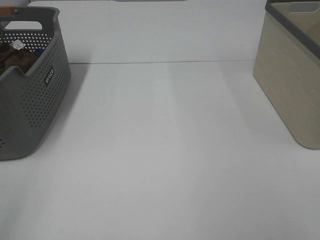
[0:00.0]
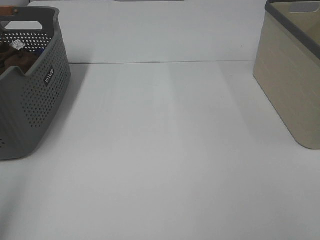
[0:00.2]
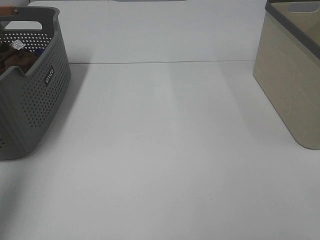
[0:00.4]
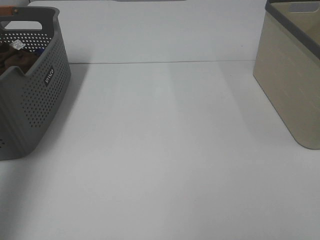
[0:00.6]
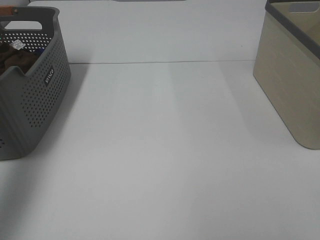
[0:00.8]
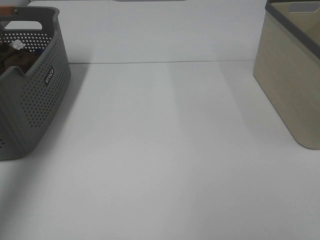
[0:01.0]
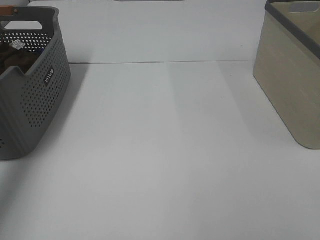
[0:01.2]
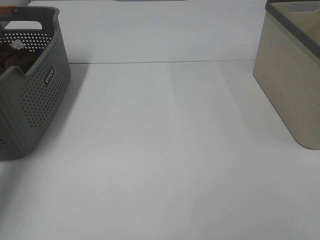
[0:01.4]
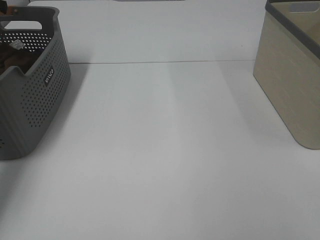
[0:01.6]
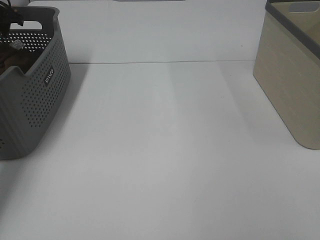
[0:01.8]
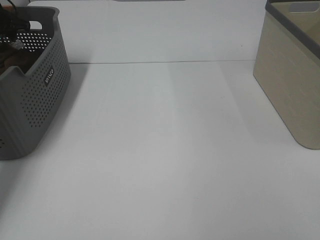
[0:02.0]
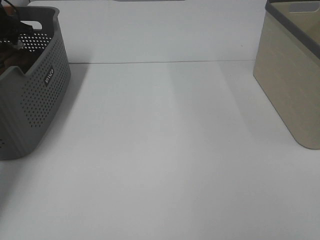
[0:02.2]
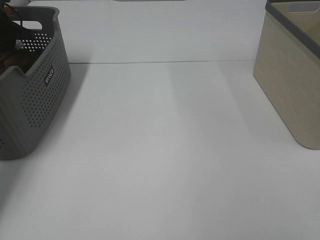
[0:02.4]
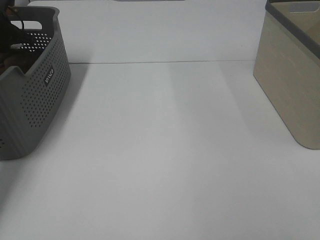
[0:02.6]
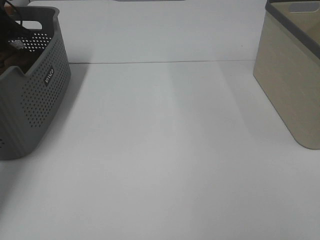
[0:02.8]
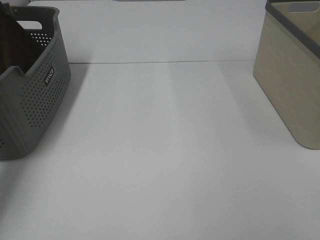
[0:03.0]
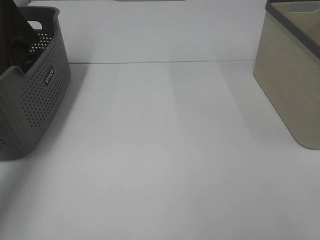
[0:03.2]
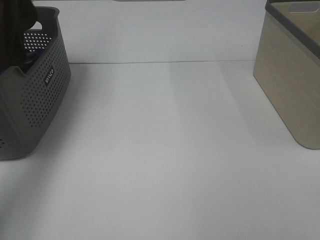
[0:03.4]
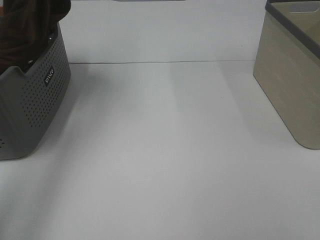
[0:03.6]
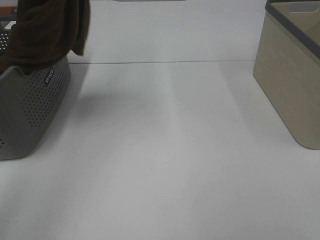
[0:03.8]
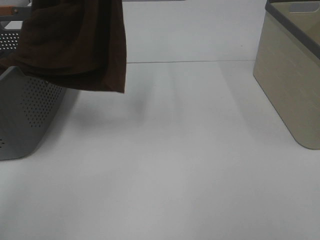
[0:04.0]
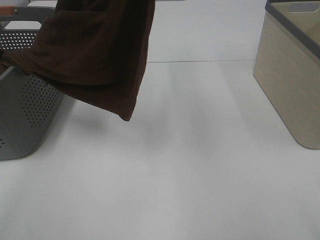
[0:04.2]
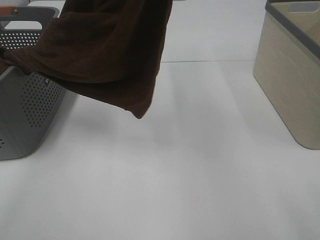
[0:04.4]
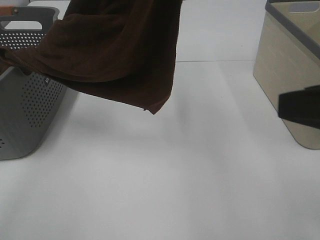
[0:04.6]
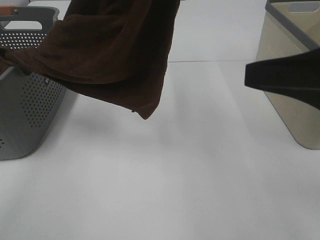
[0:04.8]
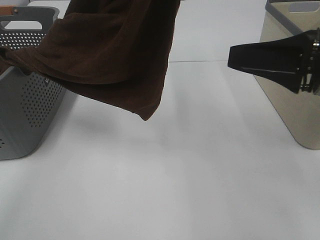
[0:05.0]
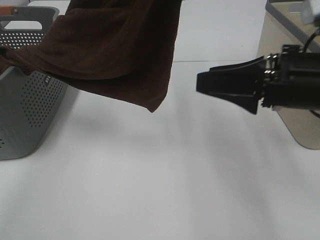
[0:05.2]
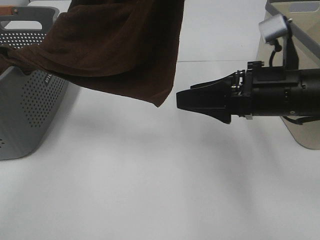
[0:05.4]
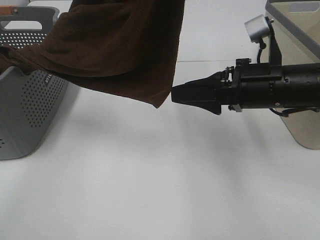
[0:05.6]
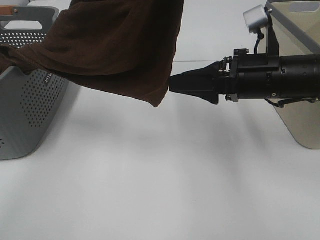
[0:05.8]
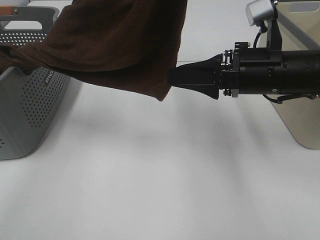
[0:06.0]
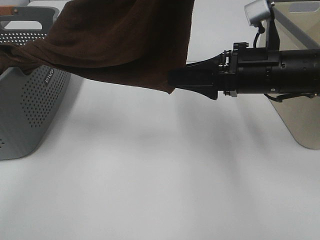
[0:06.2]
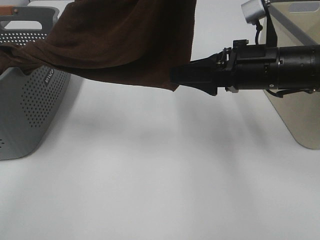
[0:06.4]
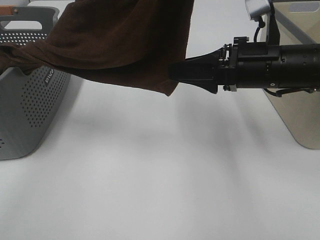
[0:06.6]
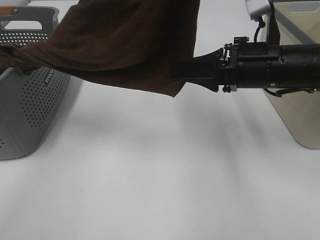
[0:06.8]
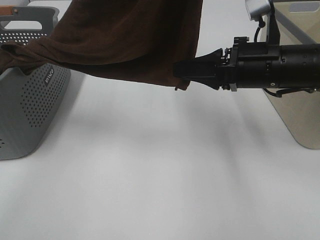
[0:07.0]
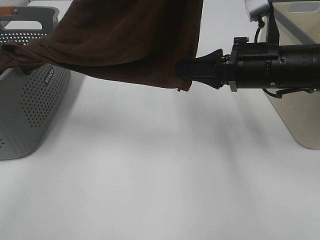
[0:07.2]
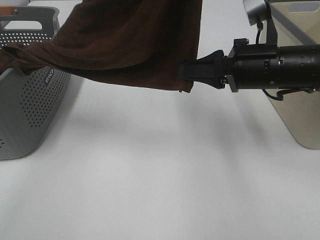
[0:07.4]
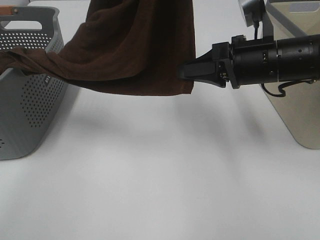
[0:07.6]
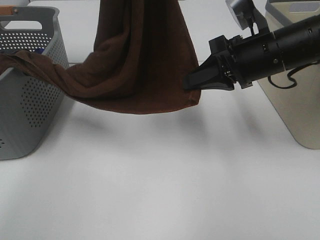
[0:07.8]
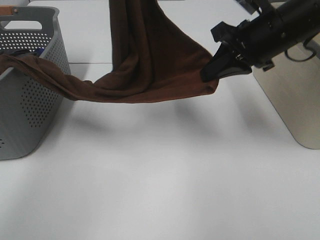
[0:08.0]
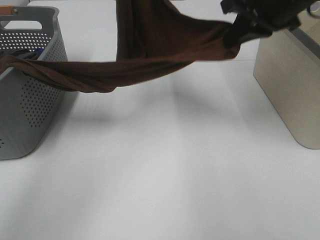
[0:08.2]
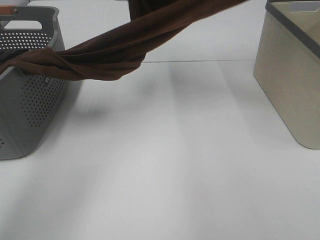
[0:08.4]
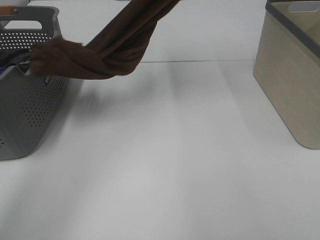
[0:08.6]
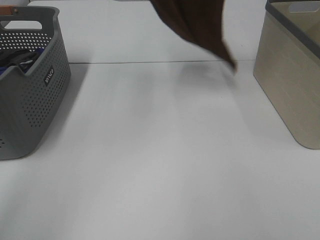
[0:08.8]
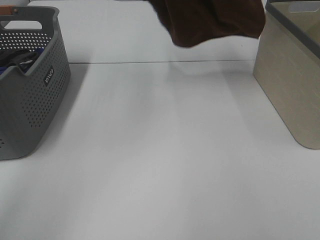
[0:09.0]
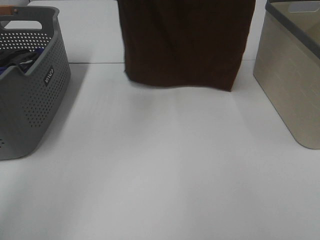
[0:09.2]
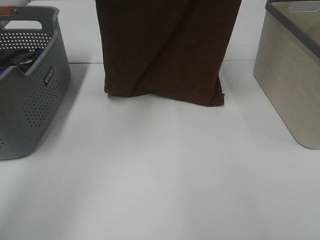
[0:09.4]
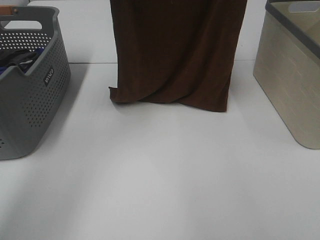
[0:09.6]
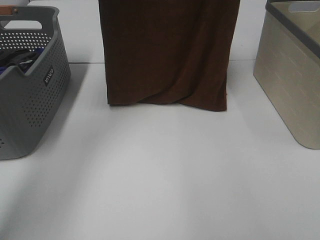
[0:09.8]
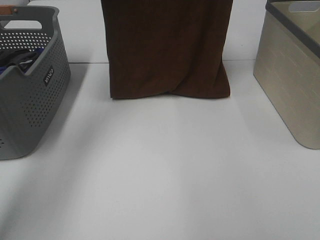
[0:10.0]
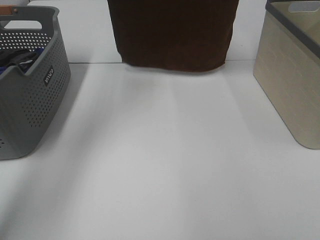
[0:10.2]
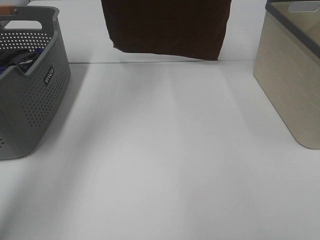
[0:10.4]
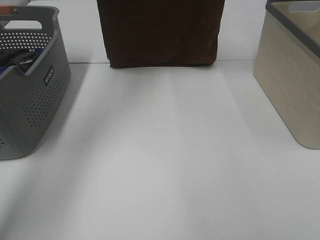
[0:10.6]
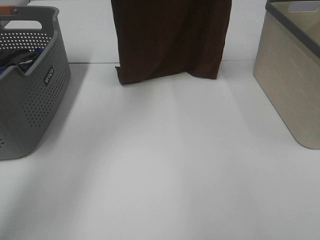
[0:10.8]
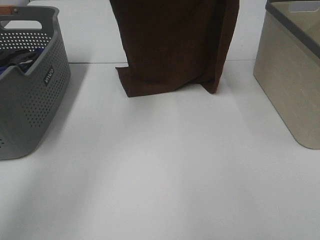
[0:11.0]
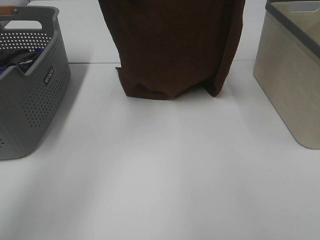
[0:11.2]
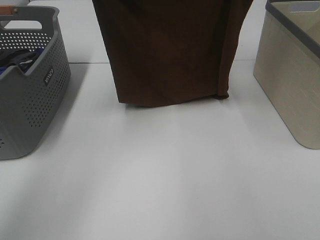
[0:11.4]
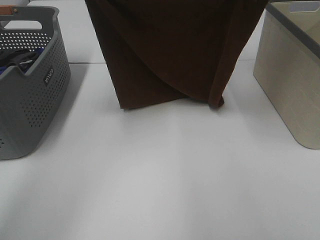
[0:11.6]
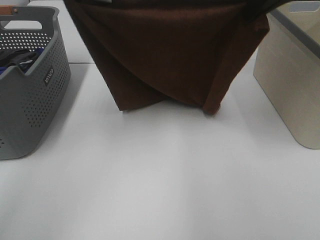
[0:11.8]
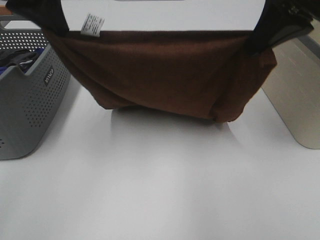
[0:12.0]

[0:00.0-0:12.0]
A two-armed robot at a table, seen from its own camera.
Task of the whole recording: Remove the towel and place it.
Step, 0:03.2 to 0:06.0: Right hand: grab a corner of the brown towel and straighten it.
Step, 0:06.2 to 0:10.0: Left hand: spread the brown towel flat on the table.
Step, 0:06.2 to 0:10.0: Right hand: spread the brown towel flat on the table.
0:00.0 to 0:01.6: The left gripper is displaced forward by approximately 50 cm.
0:01.6 to 0:03.0: The left gripper goes downward and returns, about 10 cm each way, and closes up.
0:03.0 to 0:04.4: The left gripper is displaced to the right, backward and upward by roughly 40 cm. The right gripper heads forward, covering some 5 cm.
0:04.4 to 0:06.0: The right gripper is displaced forward, downward and to the left by about 25 cm.
0:06.0 to 0:07.6: The right gripper closes its fingers.
0:07.6 to 0:09.0: The left gripper shifts approximately 10 cm to the left and forward, and reaches about 10 cm downward, then returns. Meanwhile the right gripper goes approximately 35 cm upward.
0:09.0 to 0:10.4: The left gripper travels forward and downward by approximately 10 cm, while the right gripper goes about 10 cm forward.
0:10.4 to 0:12.0: The right gripper shifts roughly 25 cm downward and backward, while the left gripper travels backward and downward by roughly 20 cm.

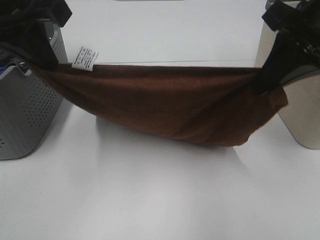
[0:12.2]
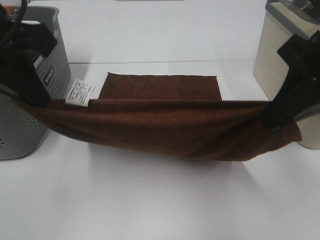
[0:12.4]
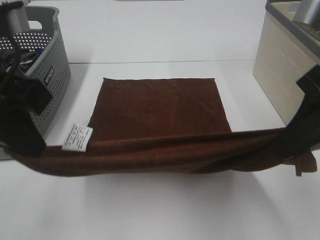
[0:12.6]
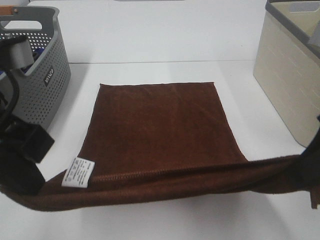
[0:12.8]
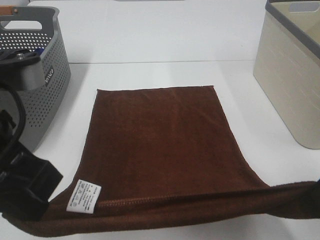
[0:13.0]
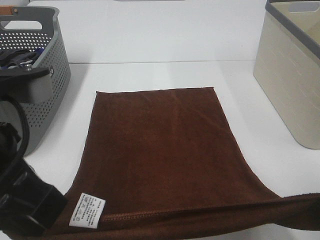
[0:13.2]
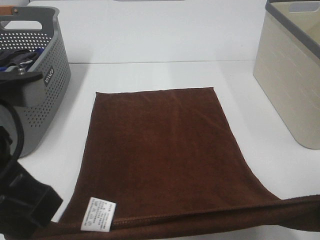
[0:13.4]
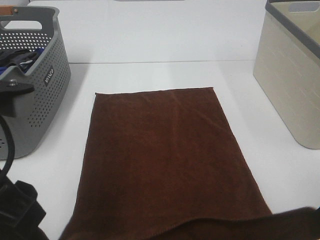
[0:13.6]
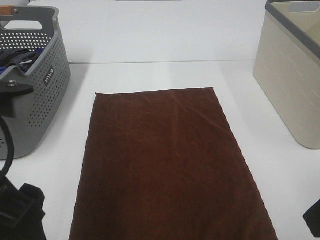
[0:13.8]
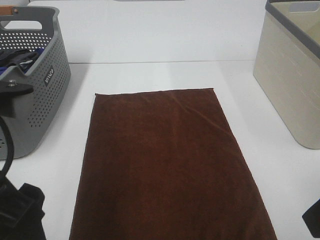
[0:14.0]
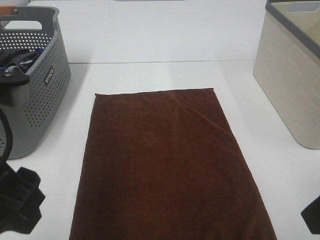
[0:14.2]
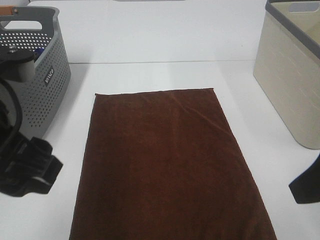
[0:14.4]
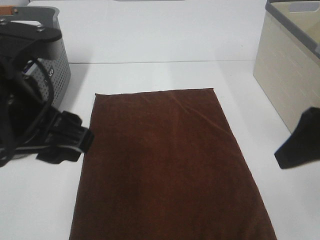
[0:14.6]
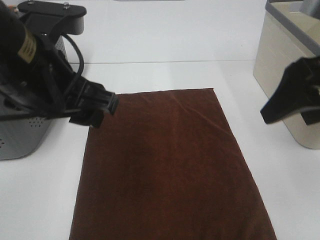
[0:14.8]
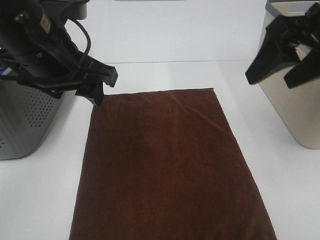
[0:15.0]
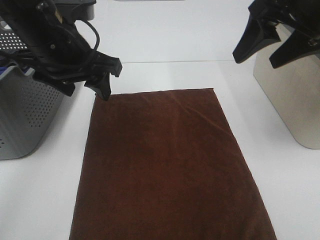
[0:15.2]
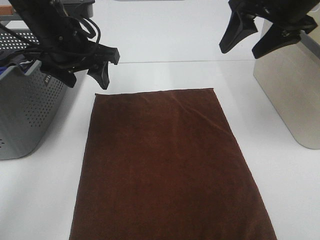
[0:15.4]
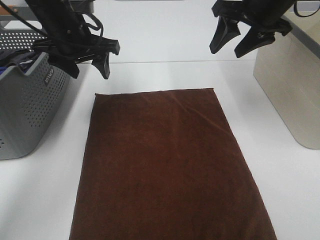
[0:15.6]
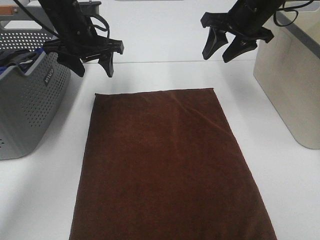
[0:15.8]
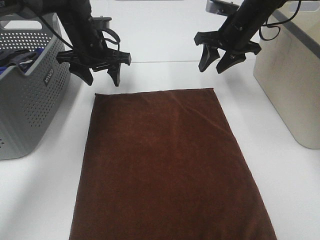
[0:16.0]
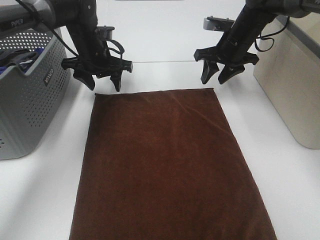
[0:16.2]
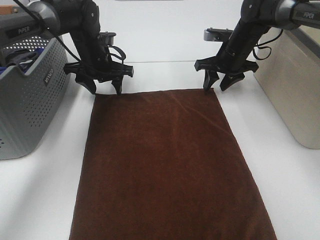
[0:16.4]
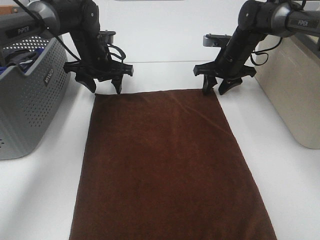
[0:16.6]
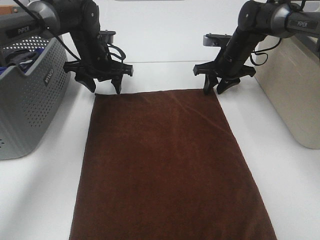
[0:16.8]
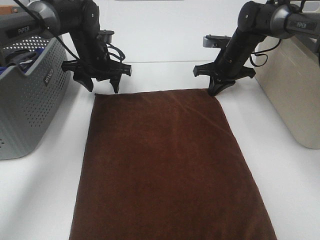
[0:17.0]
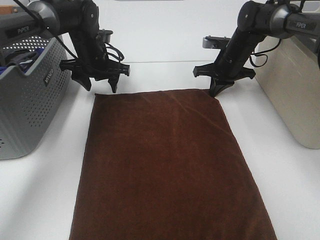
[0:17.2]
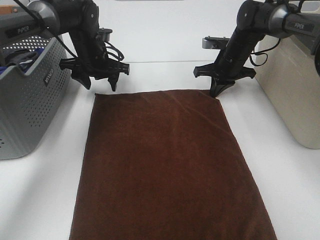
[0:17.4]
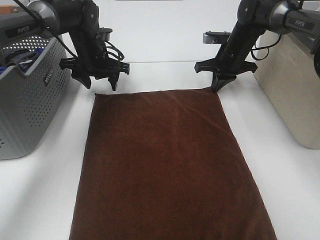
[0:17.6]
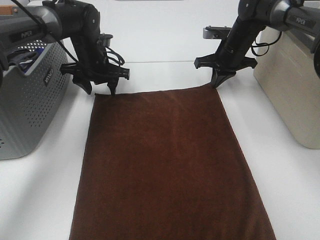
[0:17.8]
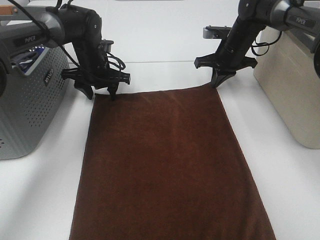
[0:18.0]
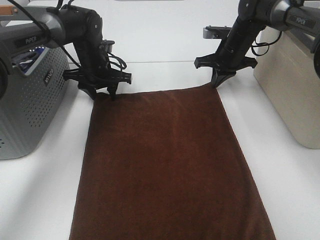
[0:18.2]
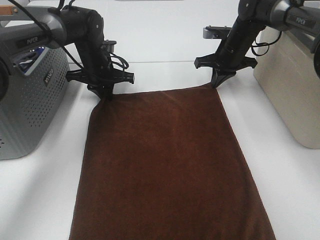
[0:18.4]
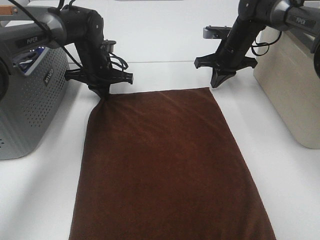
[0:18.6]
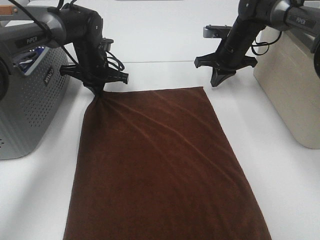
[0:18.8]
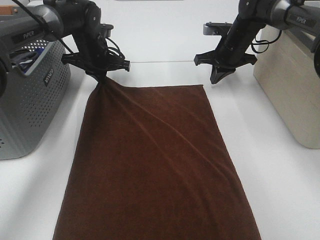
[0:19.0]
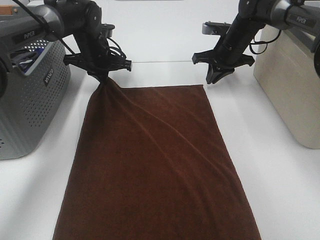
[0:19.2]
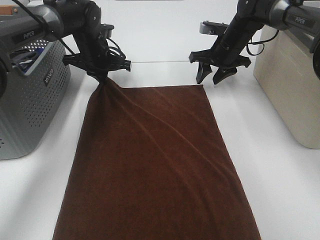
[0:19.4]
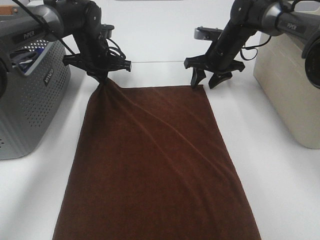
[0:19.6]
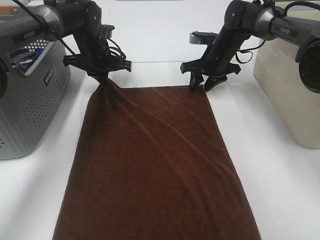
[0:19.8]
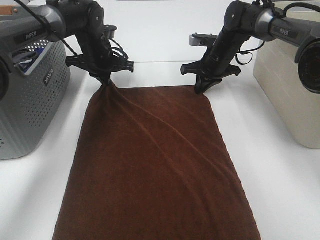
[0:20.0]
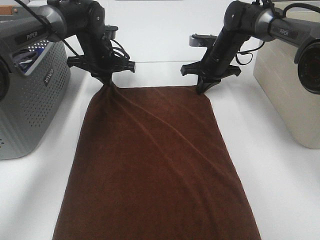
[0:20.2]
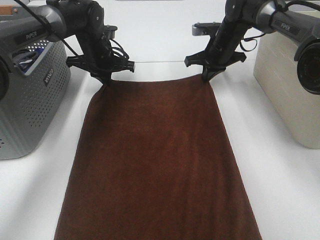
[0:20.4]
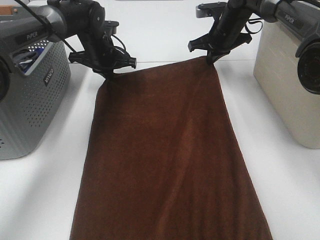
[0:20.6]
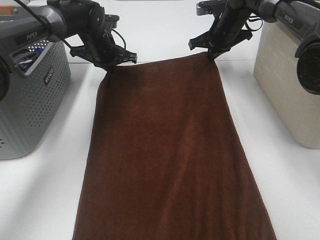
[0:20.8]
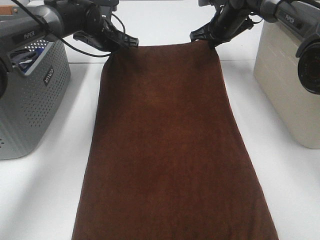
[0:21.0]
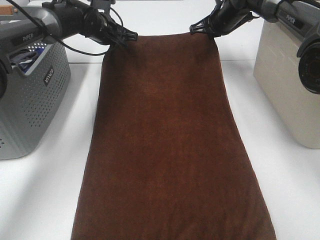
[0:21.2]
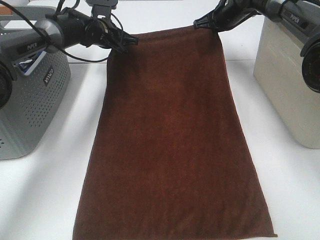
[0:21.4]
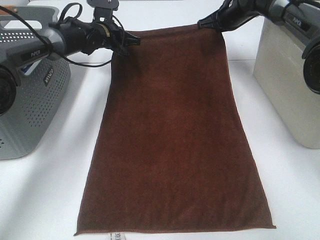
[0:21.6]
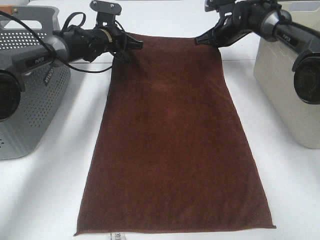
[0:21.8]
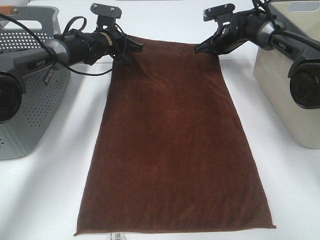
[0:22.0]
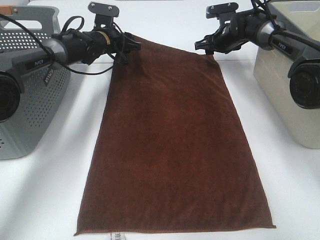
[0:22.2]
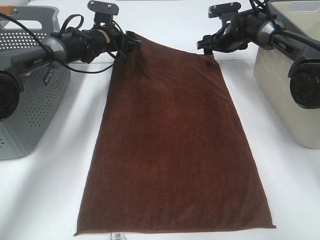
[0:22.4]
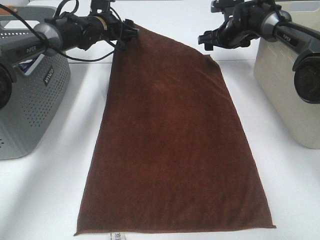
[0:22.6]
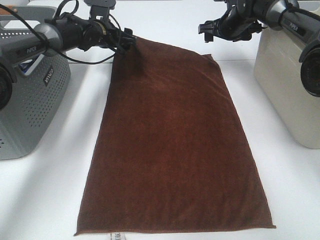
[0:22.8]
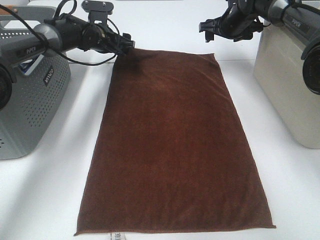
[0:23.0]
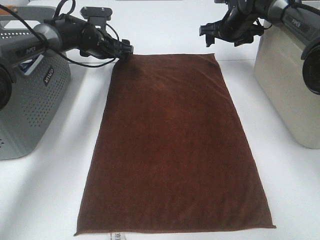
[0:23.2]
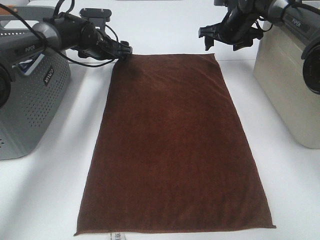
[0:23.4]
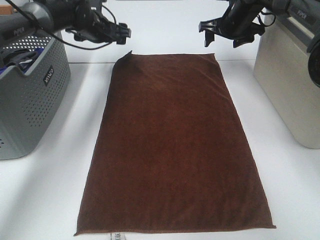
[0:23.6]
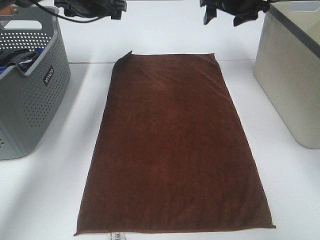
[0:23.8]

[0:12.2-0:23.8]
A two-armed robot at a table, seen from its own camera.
Task of the whole recording: Remove the towel and place it.
Step, 0:12.2 to 0:17.8: Left hand:adjust the brown towel.
Step, 0:12.2 to 0:17.8: Right hand:adjust the brown towel.
0:12.2 to 0:13.6: The right gripper shifts some 15 cm backward, and opens its fingers; the left gripper goes roughly 15 cm backward and downward, and opens its fingers.
0:13.6 to 0:15.0: The two grippers go some 15 cm forward.
0:15.0 to 0:16.6: The grippers both shift forward and downward by some 30 cm.
0:16.6 to 0:18.0: The right gripper closes.
0:18.0 to 0:19.4: The left gripper closes its fingers. Meanwhile the right gripper opens up.
0:19.4 to 0:21.0: The right gripper moves approximately 5 cm, and closes.
0:21.0 to 0:22.4: The left gripper opens its fingers. The right gripper is displaced downward by some 5 cm, and opens its fingers.
0:22.4 to 0:23.8: The two grippers go about 15 cm upward.
